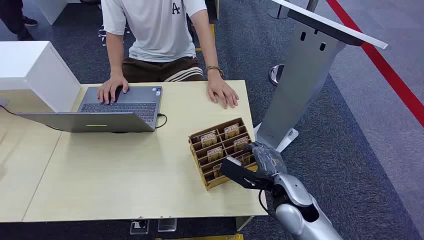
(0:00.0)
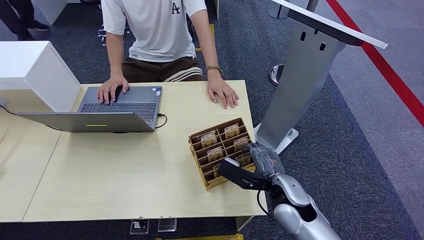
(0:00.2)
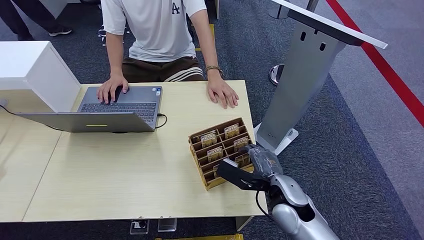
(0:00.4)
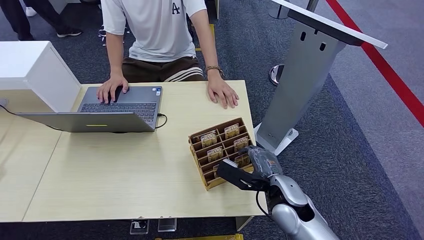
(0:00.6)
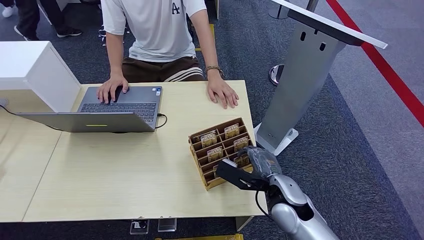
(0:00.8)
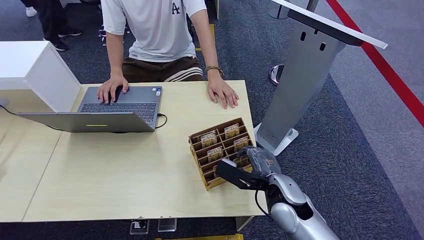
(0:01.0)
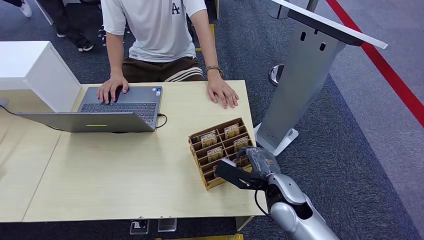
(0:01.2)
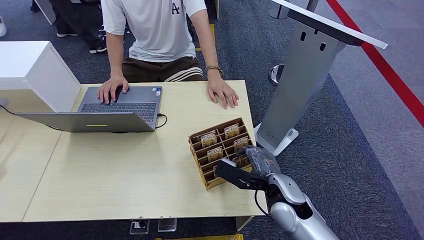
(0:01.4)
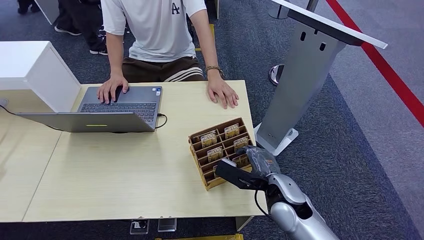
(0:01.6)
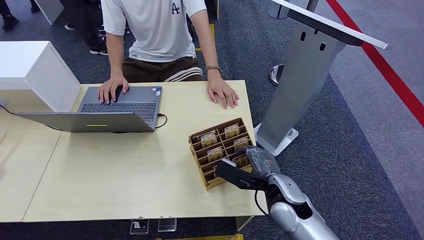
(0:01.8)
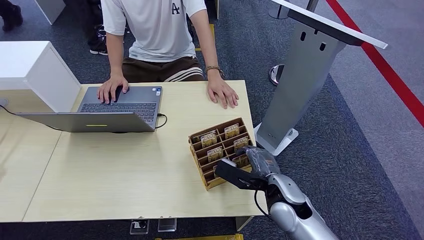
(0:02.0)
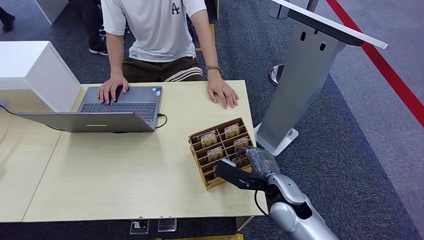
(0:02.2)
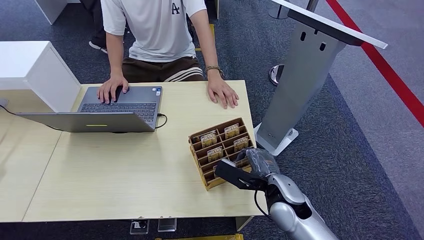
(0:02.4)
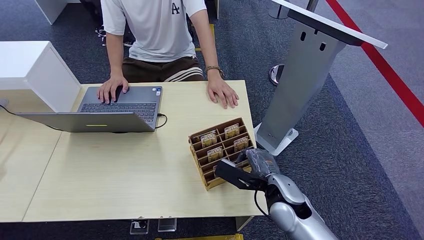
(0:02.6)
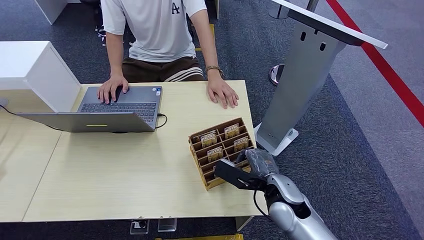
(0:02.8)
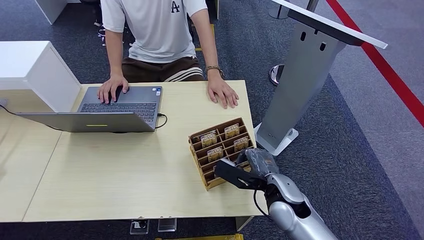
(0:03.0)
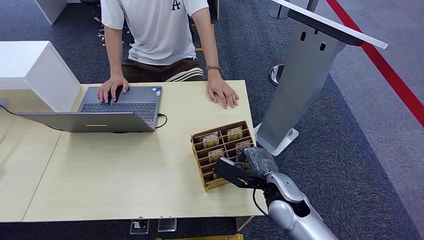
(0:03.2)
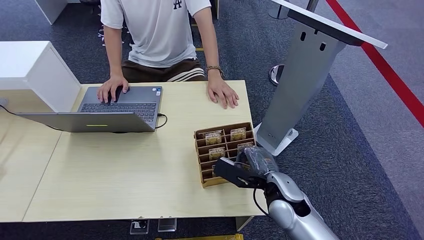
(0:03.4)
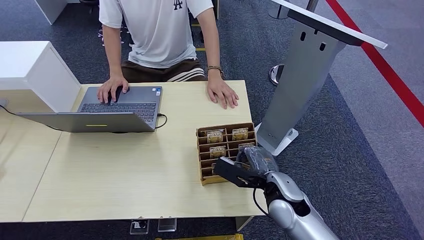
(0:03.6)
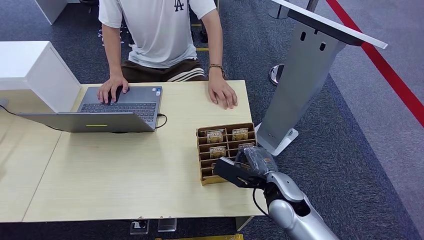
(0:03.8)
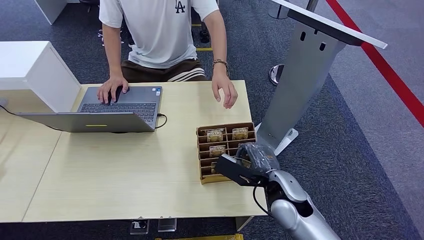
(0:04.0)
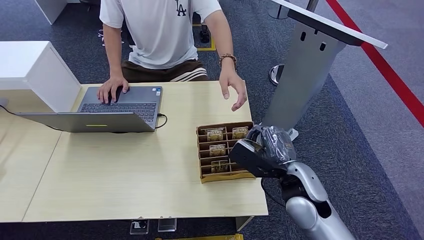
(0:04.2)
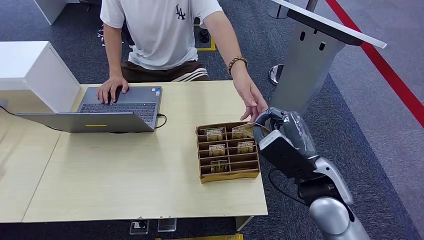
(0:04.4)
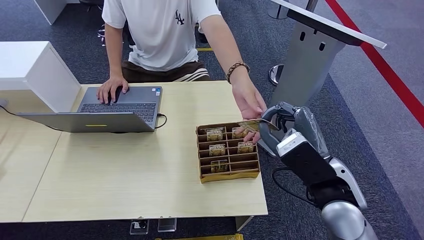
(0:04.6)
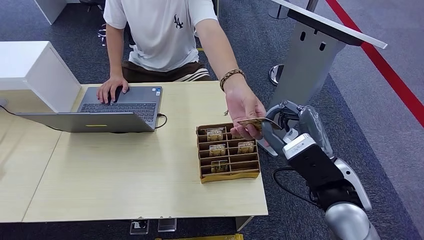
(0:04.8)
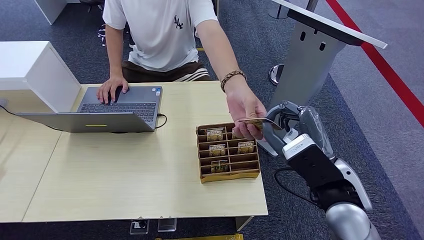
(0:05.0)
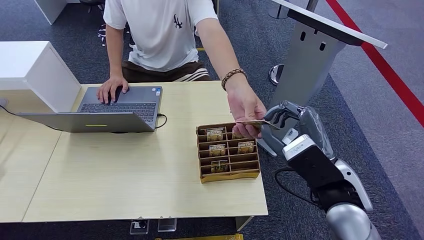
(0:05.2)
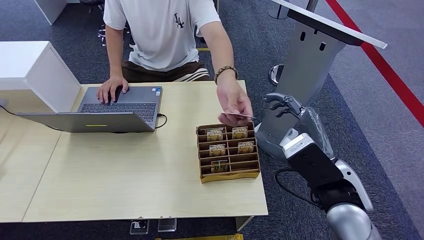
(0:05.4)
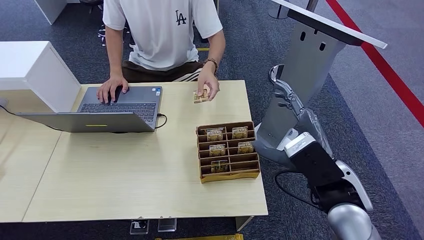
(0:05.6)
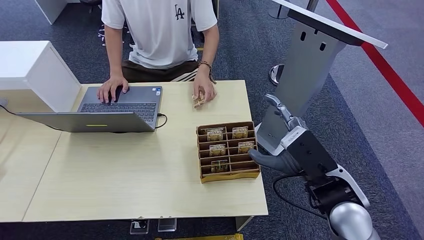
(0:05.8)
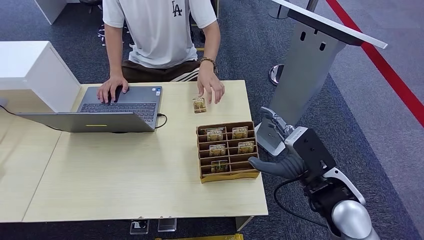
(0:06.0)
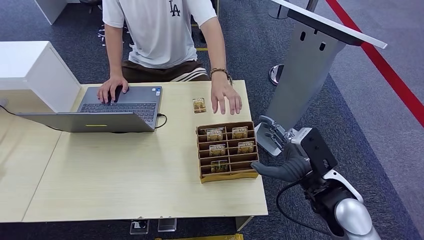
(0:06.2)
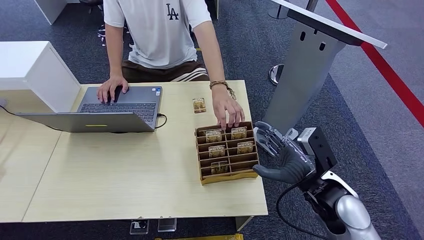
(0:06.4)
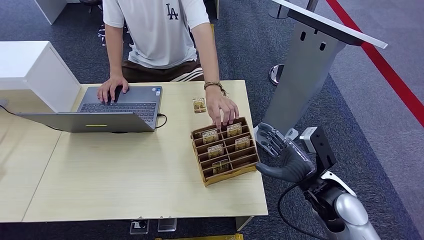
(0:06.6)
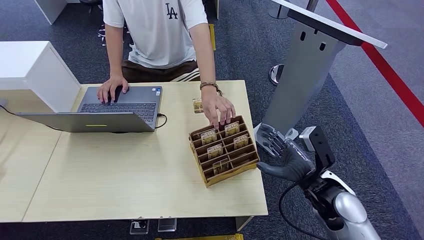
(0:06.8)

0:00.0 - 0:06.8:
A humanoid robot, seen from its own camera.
Step, 0:00.0 - 0:04.2: Pick up the key card from the card box.
Step, 0:04.4 - 0:06.8: Hand the key card to the target.
0:01.4 - 0:02.8: Neither hand changes place.
0:02.8 - 0:04.0: The hands move only a little.
0:04.0 - 0:05.4: The right hand moves upward and to the right, some 15 cm.
0:05.4 - 0:06.8: The right hand shifts some 10 cm downward and to the right.
